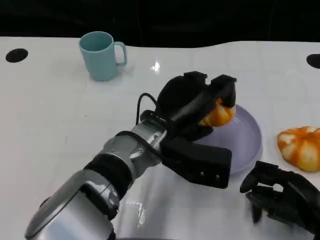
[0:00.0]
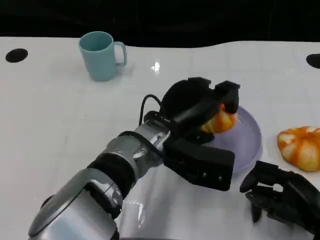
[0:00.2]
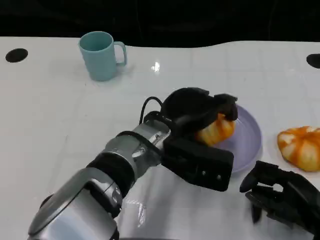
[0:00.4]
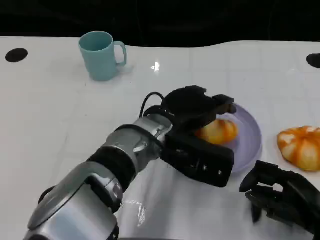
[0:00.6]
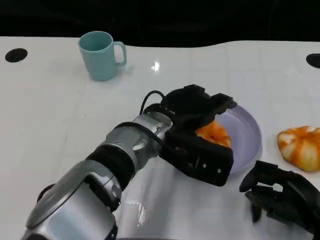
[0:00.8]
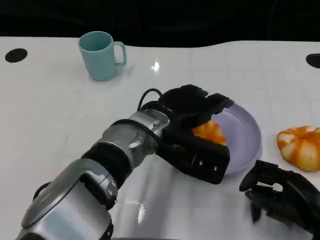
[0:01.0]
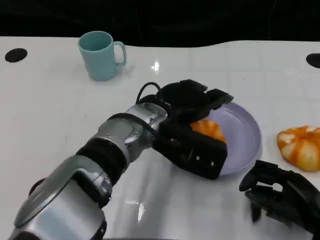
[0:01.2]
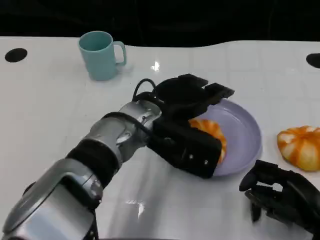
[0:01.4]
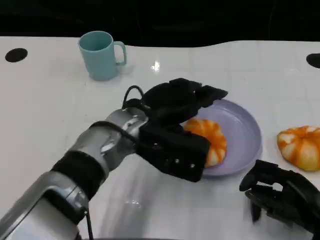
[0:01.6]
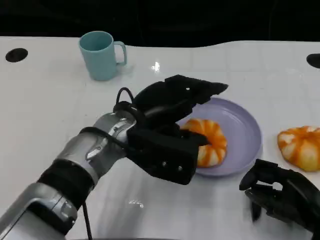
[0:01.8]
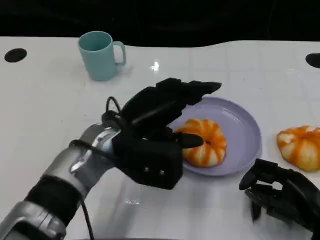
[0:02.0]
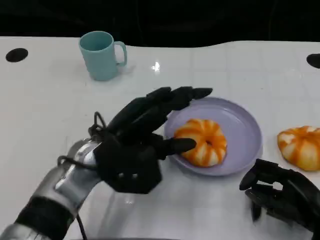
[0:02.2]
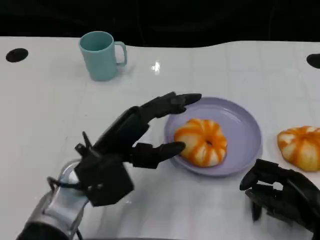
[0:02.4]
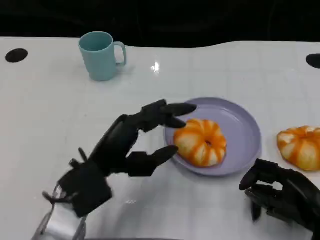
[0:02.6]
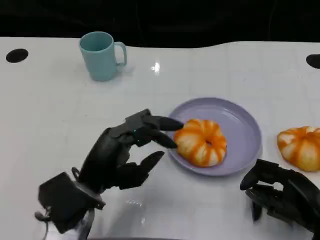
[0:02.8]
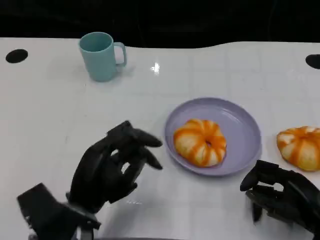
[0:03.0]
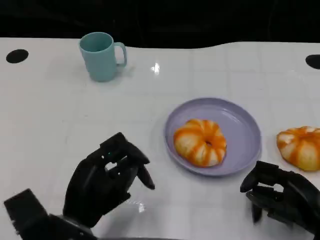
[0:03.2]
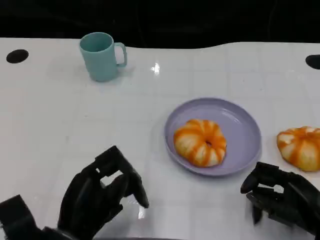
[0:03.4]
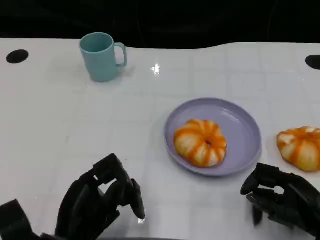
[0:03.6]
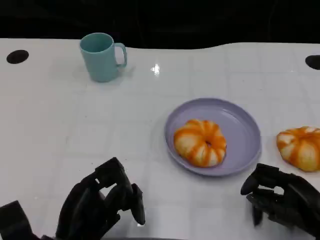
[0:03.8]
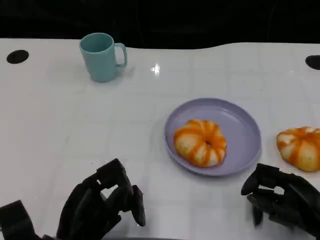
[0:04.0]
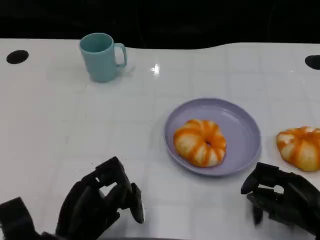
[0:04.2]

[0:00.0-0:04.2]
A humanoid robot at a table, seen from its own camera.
Task of the whole recording: Grasp the bread from the table and place it into the plate.
0:01.4 to 0:02.8: The left hand goes approximately 15 cm to the left, backward and downward.
0:02.8 to 0:04.2: The left hand travels backward by approximately 5 cm.

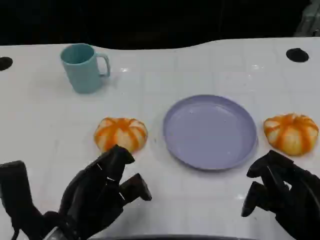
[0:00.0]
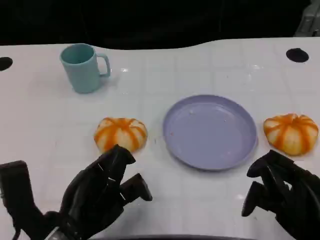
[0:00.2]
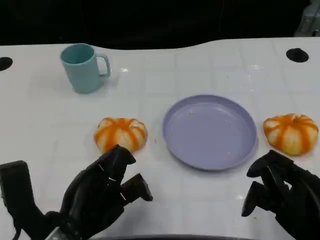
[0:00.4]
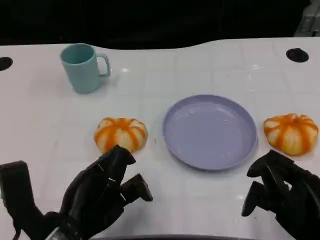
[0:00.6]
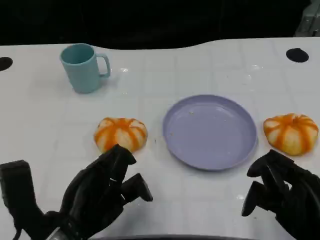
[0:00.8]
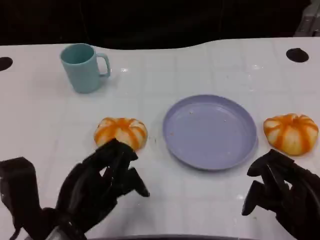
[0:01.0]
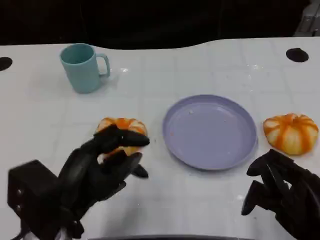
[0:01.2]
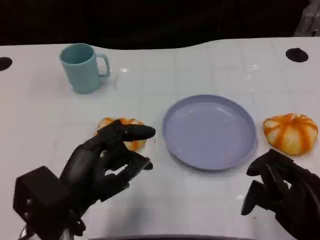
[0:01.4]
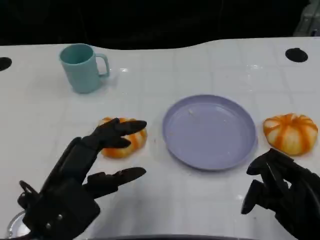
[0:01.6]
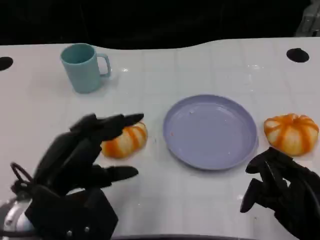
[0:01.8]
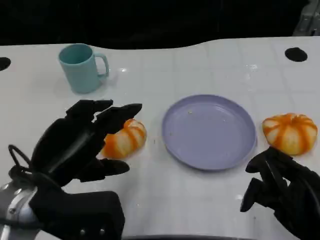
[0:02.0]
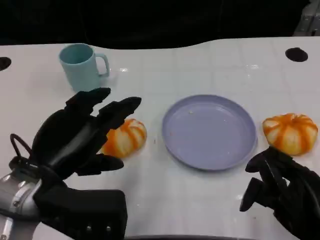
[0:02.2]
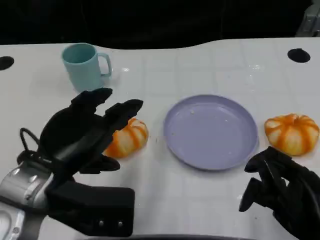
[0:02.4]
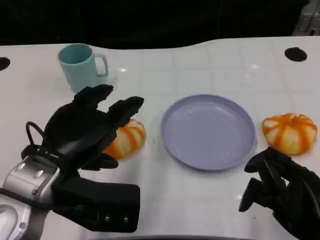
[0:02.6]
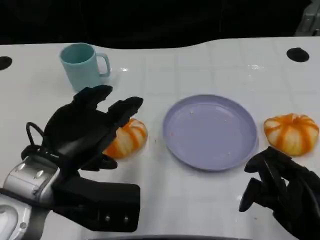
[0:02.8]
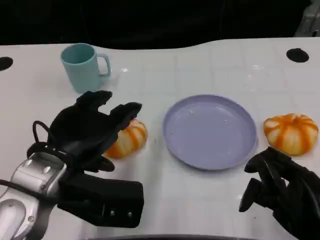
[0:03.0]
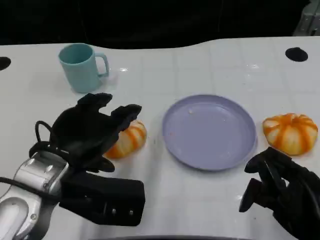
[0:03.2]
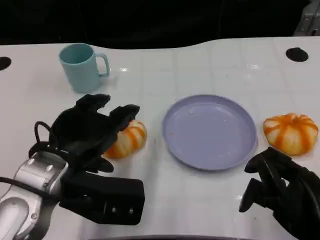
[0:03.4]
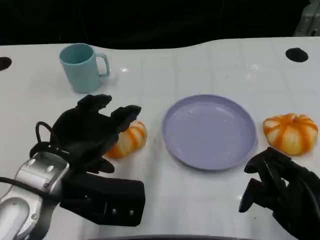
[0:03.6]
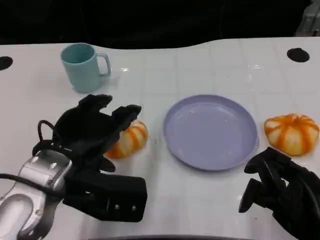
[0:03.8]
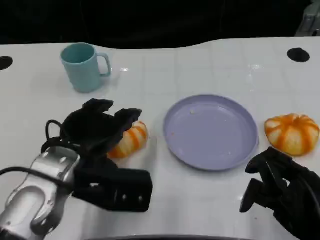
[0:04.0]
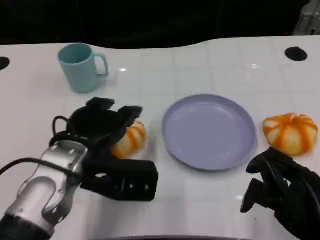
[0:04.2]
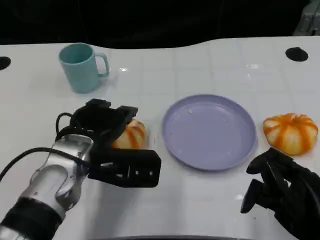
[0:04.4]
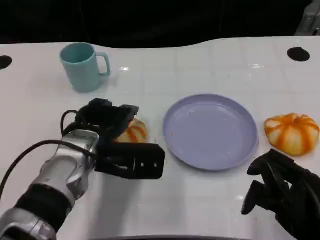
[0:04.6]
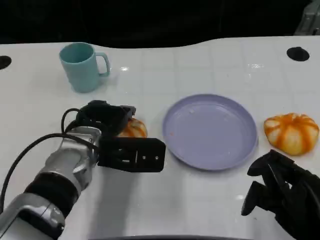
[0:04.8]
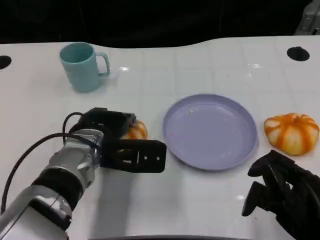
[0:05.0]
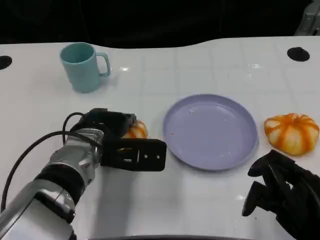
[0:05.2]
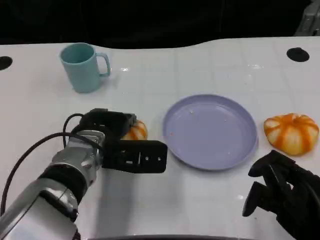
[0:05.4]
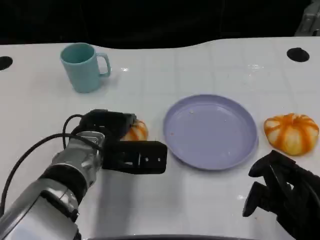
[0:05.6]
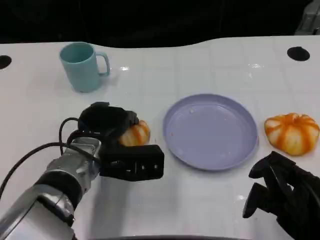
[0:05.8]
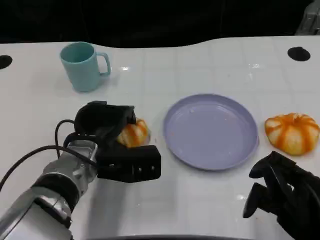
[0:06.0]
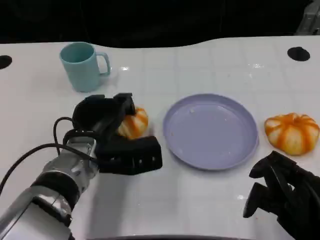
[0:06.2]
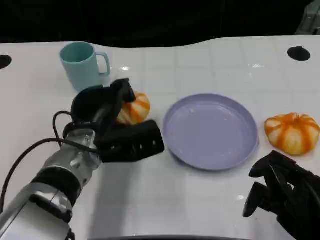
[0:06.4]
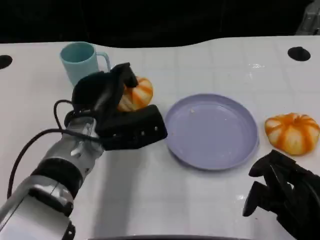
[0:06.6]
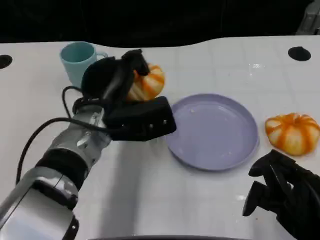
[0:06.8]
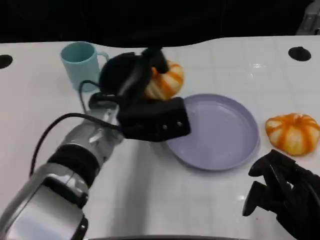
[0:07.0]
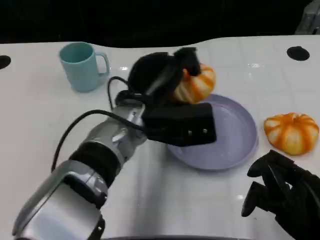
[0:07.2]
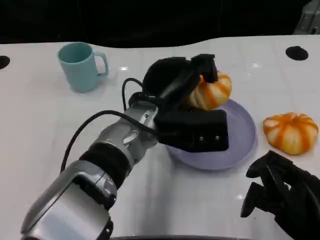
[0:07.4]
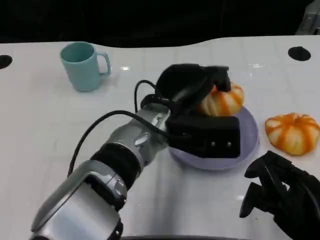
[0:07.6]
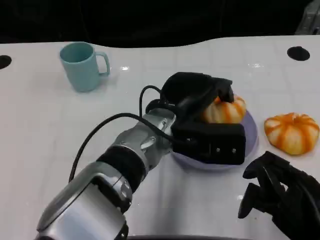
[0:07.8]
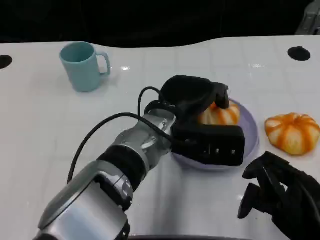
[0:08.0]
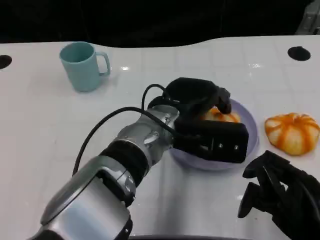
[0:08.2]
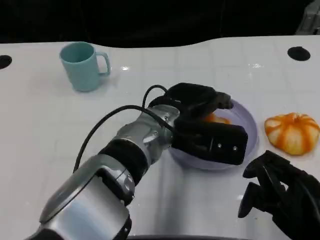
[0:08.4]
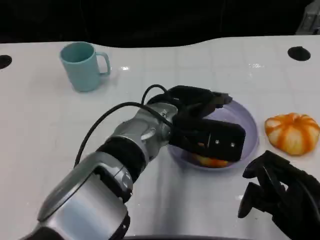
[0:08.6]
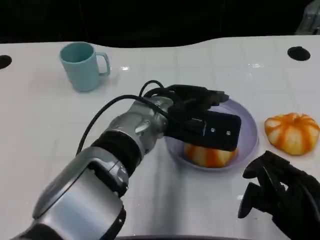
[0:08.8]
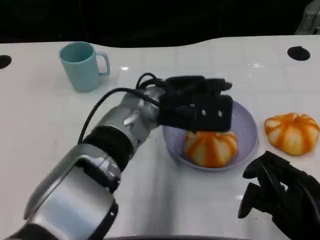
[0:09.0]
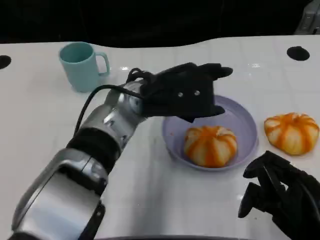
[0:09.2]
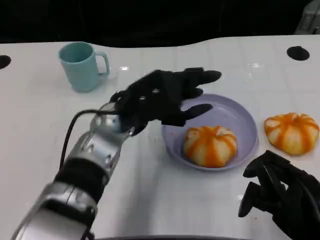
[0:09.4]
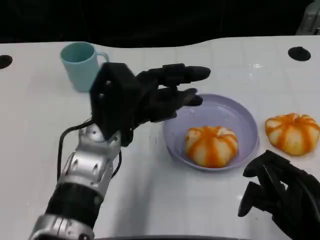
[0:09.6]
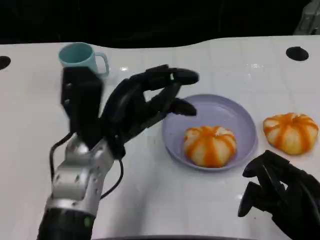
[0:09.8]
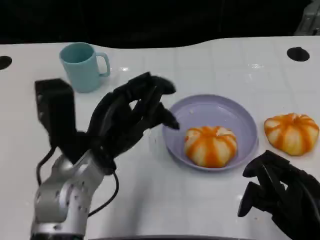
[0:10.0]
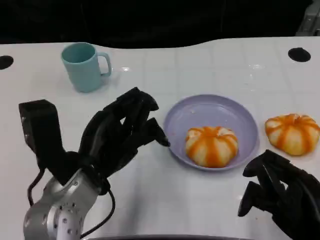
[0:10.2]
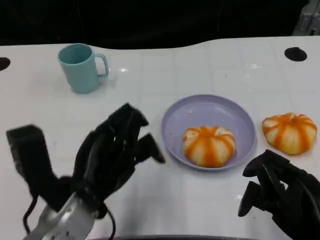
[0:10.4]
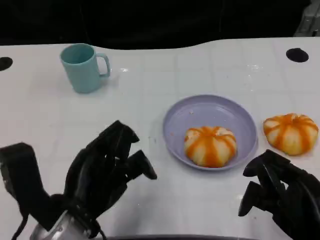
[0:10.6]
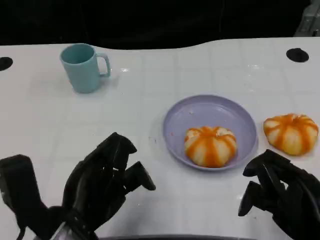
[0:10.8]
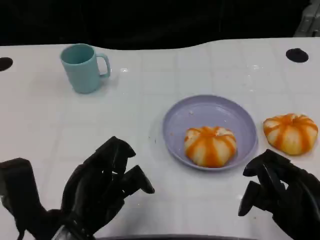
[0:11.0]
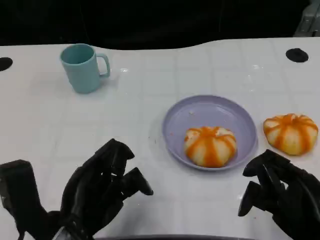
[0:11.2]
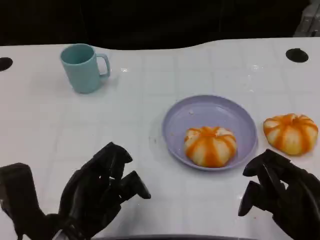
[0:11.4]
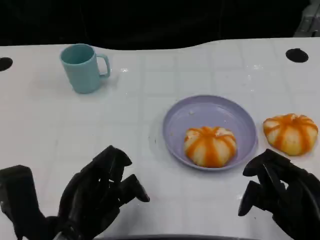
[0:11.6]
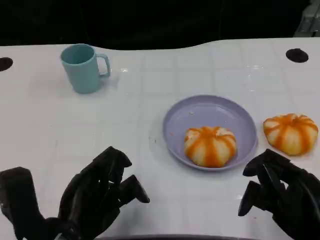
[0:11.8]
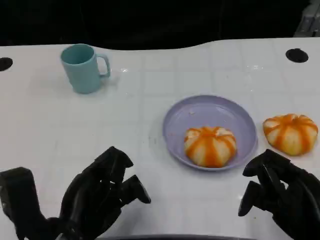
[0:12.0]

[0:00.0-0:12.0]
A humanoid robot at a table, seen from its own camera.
Task of the whole recording: Grasp the bread from the table and place it into the plate.
0:01.6 to 0:03.0: The left hand shifts by about 5 cm.
0:03.0 to 0:04.4: The left hand is displaced forward by roughly 5 cm.
0:04.4 to 0:06.0: The hands make only small movements.
0:06.0 to 0:07.6: The left hand heads to the right and upward, covering roughly 15 cm.
0:09.0 to 0:10.4: The left hand heads backward and to the left, covering about 15 cm.
0:10.4 to 0:12.0: The hands stay close to where they were, moving slightly.

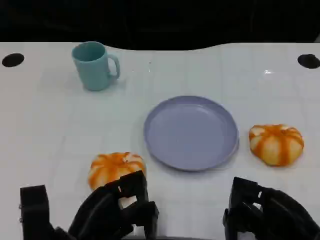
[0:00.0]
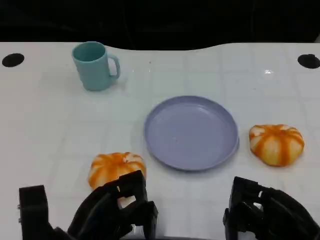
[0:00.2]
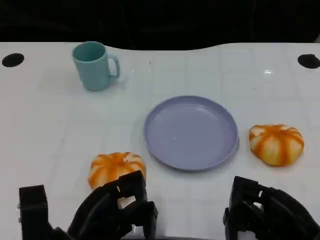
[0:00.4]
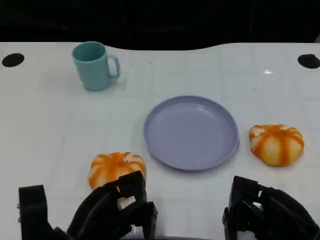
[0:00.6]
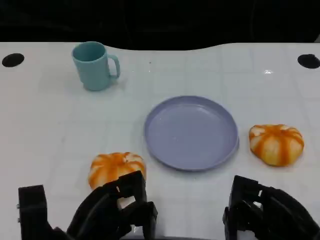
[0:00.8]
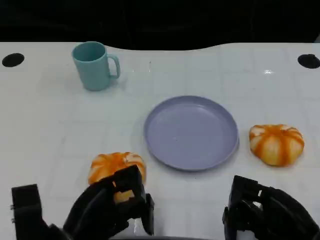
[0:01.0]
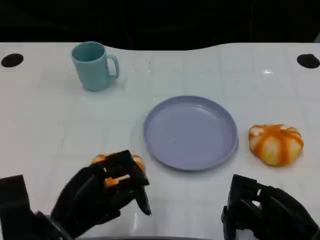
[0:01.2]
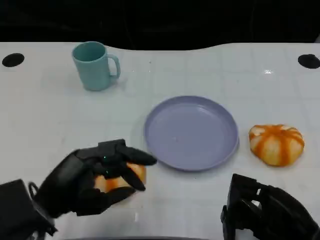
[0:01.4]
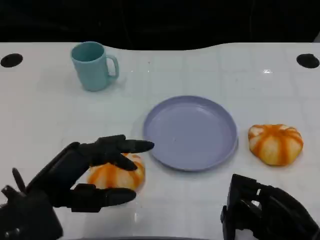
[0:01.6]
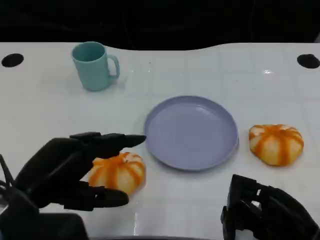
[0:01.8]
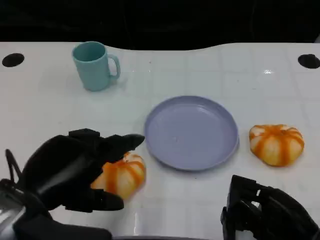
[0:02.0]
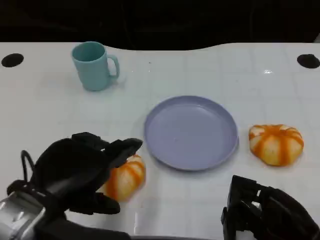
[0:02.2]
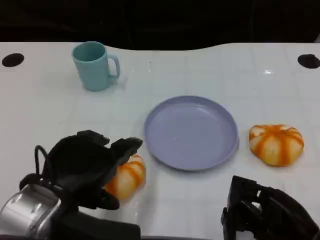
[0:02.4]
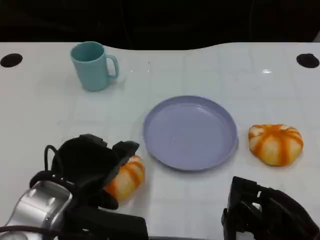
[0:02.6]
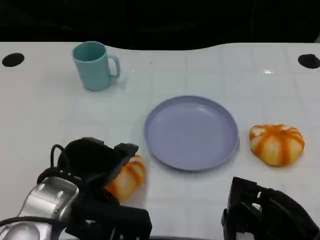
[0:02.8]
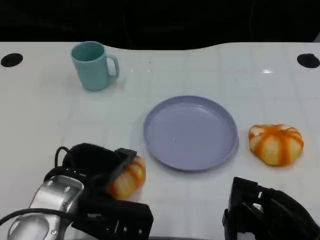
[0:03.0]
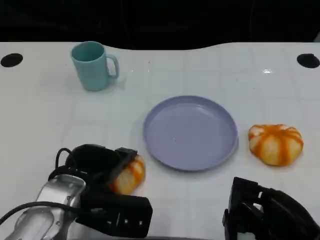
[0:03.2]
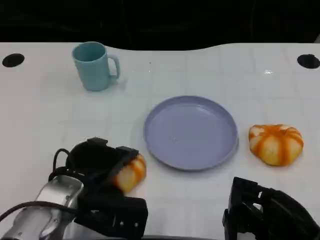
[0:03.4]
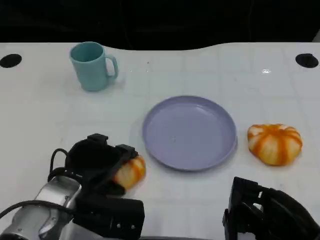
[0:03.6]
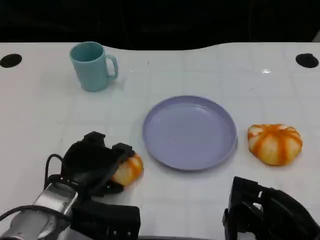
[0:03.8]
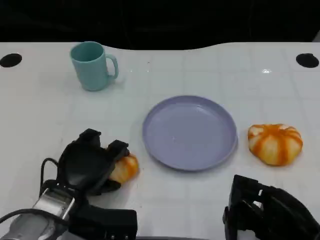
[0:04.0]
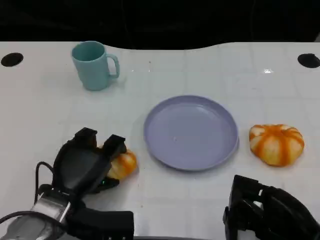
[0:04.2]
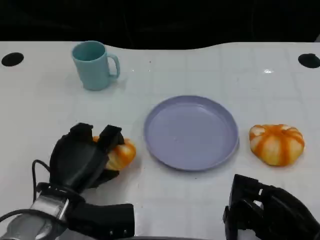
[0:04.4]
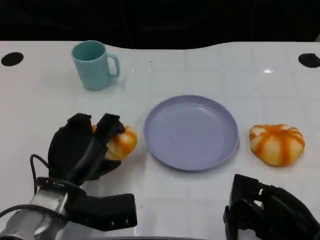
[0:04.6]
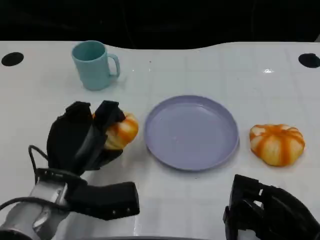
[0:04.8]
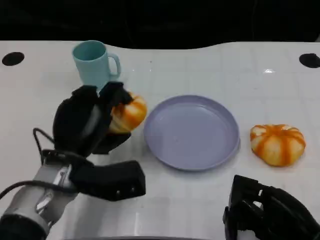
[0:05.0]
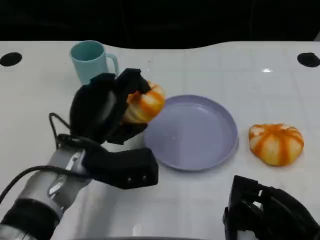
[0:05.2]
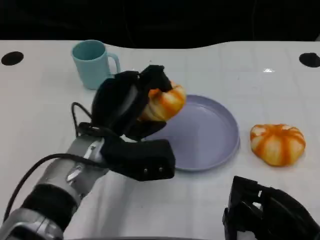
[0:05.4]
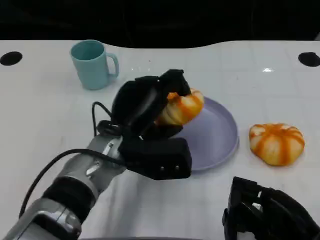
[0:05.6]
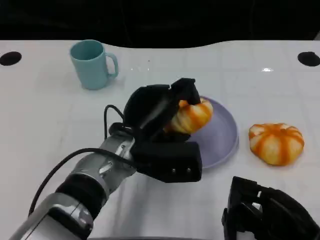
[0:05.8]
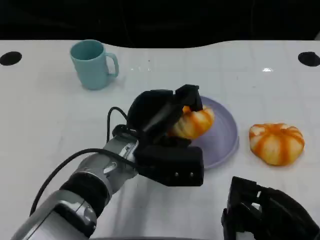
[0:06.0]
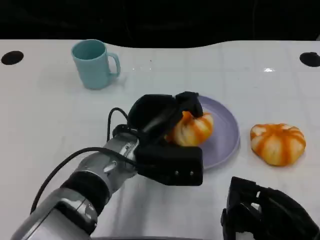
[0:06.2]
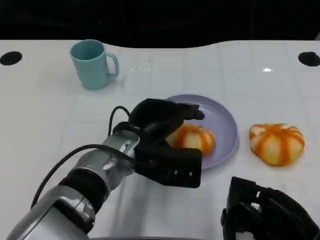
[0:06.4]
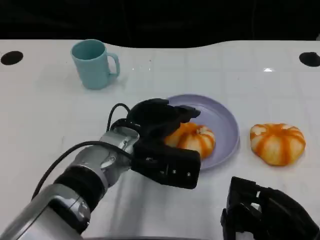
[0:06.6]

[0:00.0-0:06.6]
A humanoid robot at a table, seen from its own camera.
Task of the whole recording: Grasp the bread from the table and place it into the plate.
0:00.0 to 0:01.6: The left hand goes approximately 10 cm upward.
0:01.6 to 0:03.2: The left hand is displaced to the right and forward by roughly 10 cm.
0:05.0 to 0:06.6: The left hand heads to the right, covering some 10 cm.
